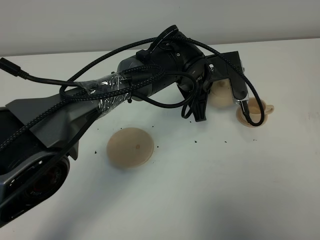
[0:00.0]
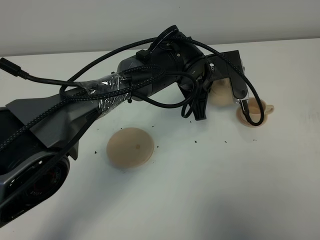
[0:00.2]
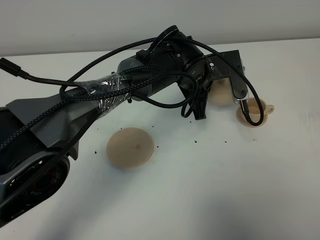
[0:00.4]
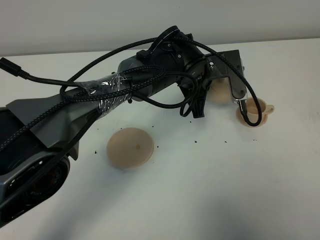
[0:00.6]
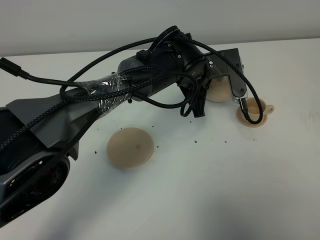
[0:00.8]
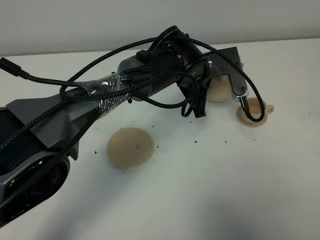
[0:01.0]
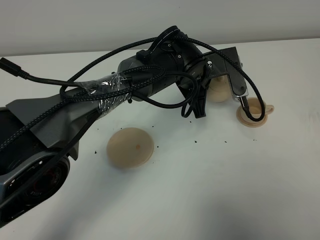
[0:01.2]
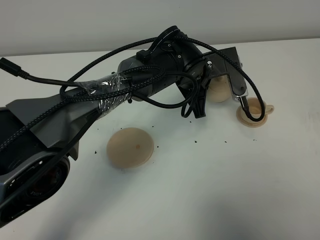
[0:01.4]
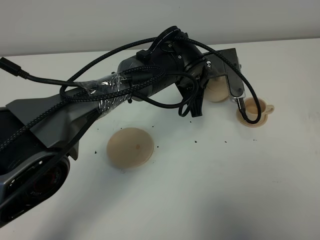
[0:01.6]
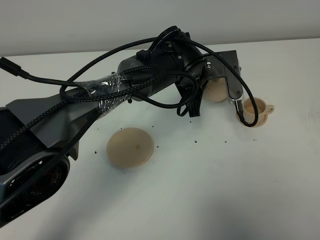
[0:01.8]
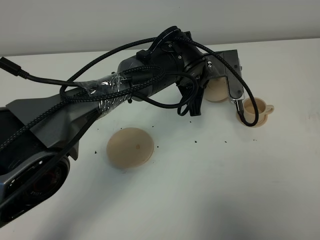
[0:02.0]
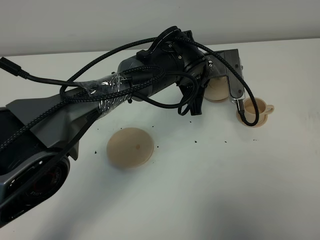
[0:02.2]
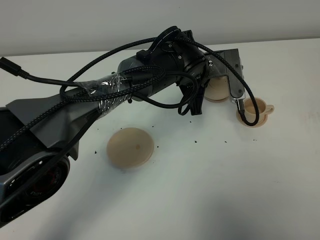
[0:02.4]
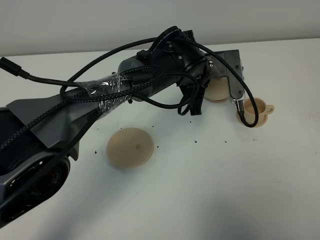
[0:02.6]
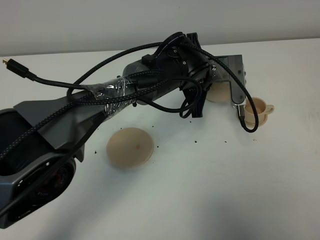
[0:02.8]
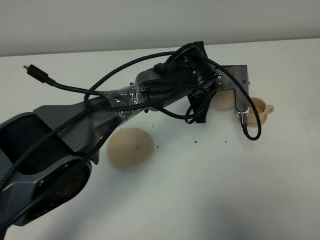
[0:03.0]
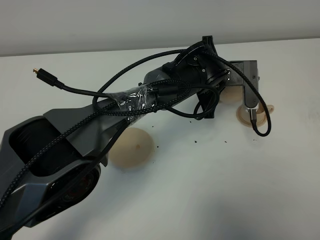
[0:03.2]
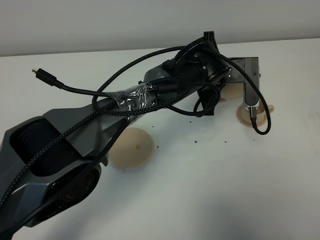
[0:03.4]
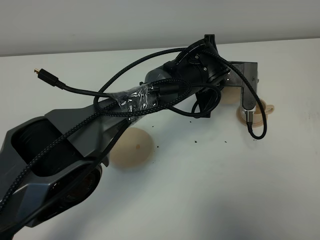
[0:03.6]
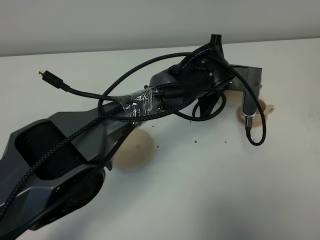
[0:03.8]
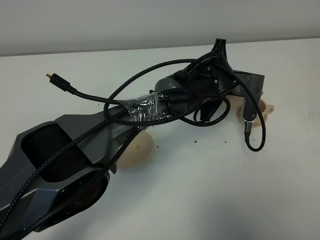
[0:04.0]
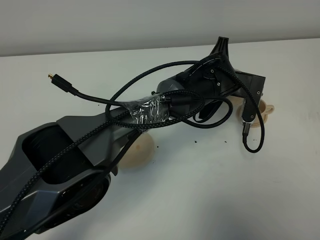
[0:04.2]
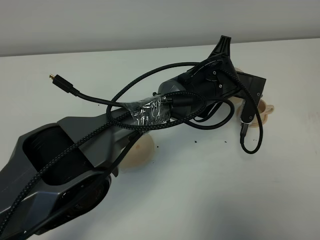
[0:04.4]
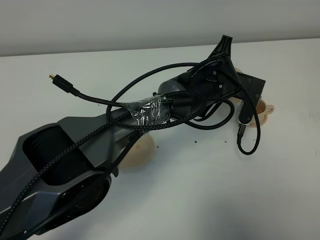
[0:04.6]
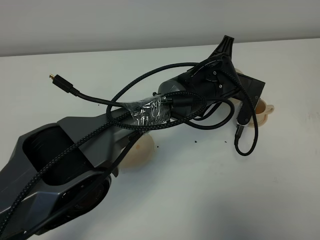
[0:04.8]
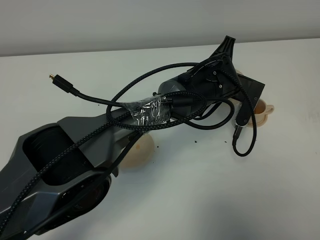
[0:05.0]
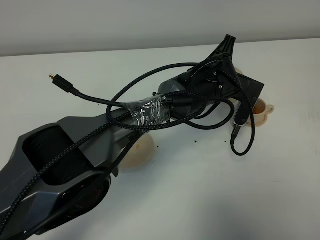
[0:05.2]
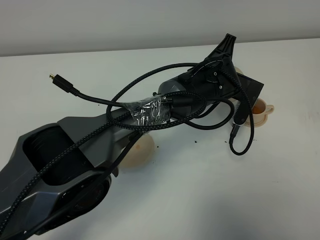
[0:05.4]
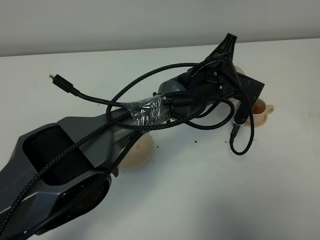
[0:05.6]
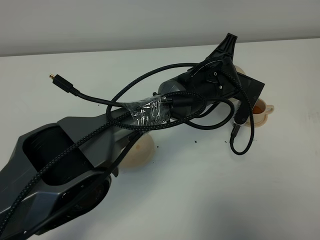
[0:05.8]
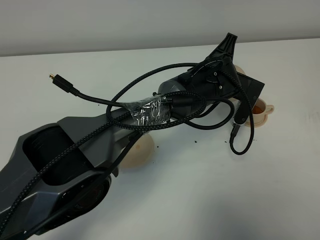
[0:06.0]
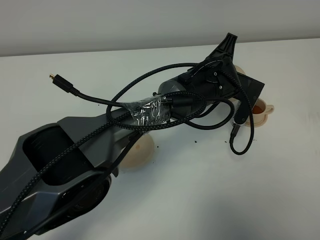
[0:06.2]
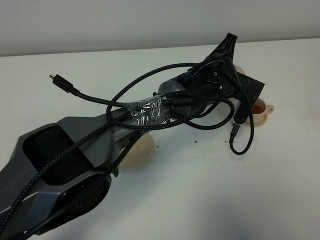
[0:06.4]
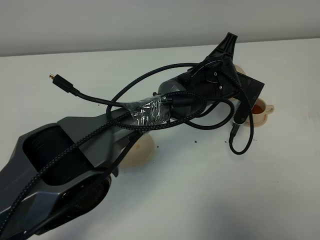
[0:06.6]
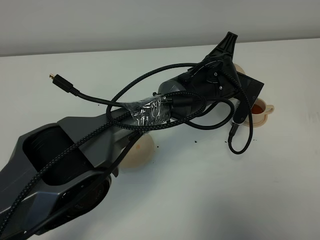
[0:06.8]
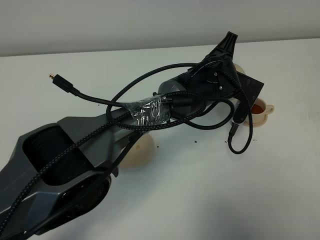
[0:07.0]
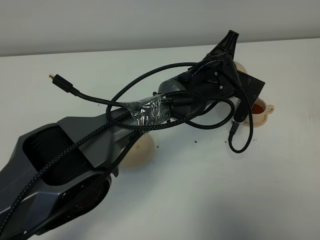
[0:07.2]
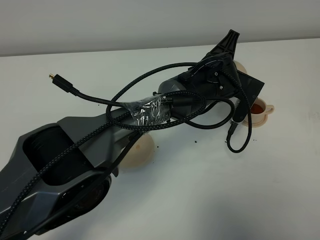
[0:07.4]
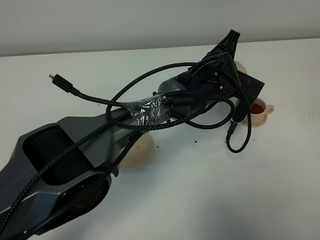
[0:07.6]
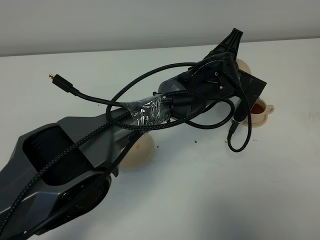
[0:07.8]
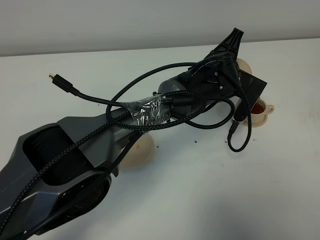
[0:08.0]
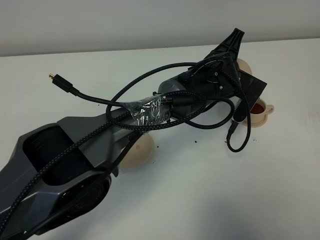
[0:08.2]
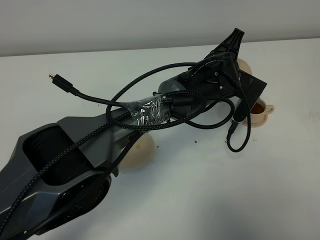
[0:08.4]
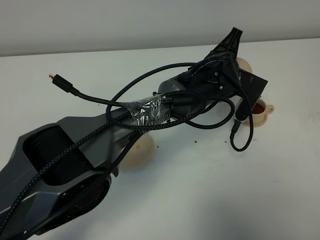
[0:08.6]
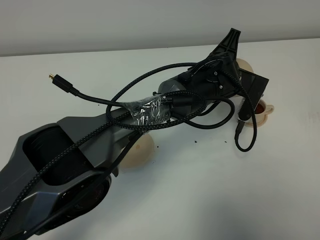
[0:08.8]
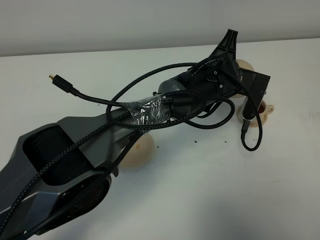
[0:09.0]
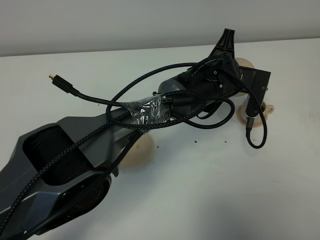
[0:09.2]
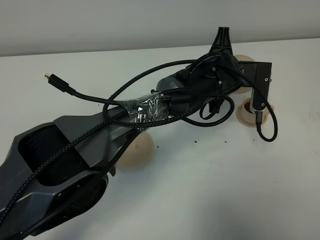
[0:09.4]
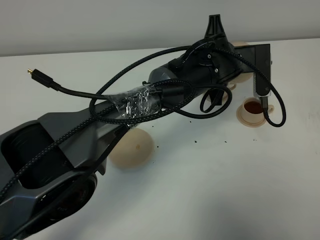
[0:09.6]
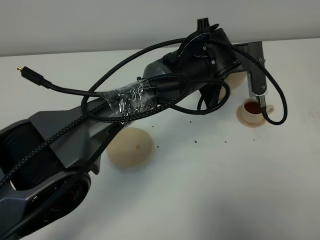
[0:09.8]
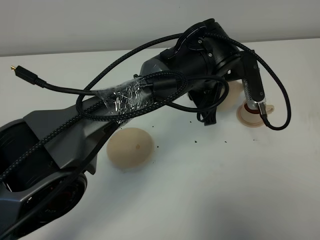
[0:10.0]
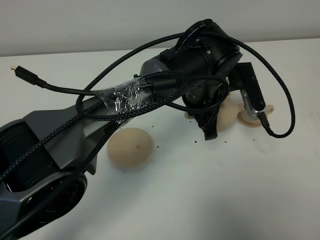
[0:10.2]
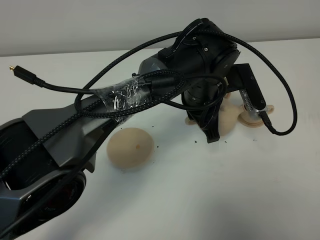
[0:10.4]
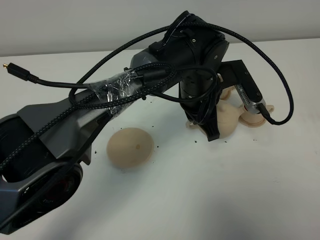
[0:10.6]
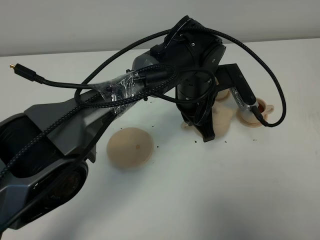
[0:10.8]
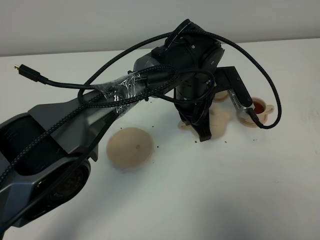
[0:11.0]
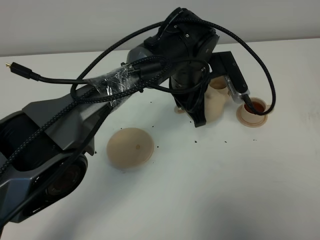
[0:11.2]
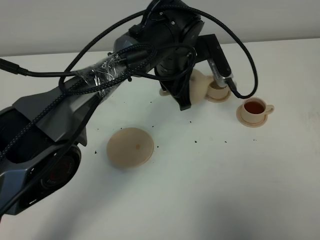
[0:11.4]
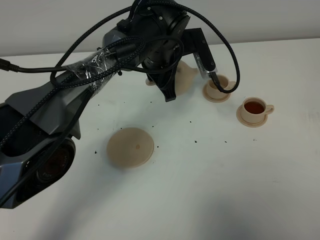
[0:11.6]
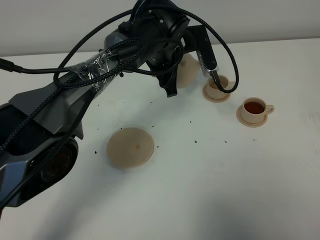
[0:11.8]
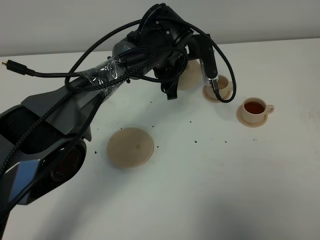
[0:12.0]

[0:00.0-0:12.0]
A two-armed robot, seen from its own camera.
Task of the whole recording: grasp the brown teapot and pour the tea into the two brown teacups one by one, put the brown teapot back in its original place.
Step, 0:00.0 to 0:09.0: Pour tea into the teacup with the left gripper.
0:00.0 to 0:01.6: Both grippers stay put.
0:04.4 to 0:06.0: The grippers move only a little.
0:06.0 to 0:07.6: Both grippers stay put.
0:07.6 to 0:09.0: The grippers stay close to where they were, moving slightly.
0:09.0 to 0:10.4: The left gripper moves roughly 5 cm.
0:10.4 to 0:12.0: The left gripper is displaced forward and to the left by approximately 10 cm.

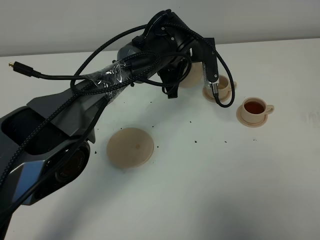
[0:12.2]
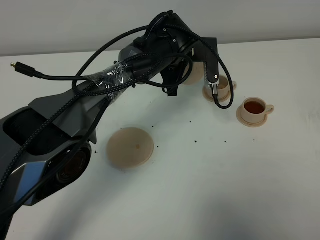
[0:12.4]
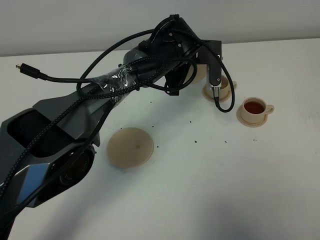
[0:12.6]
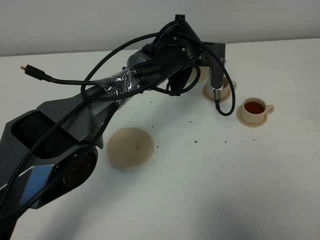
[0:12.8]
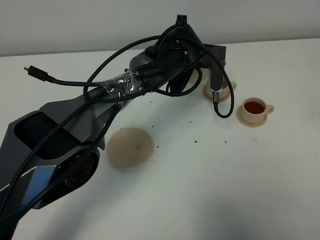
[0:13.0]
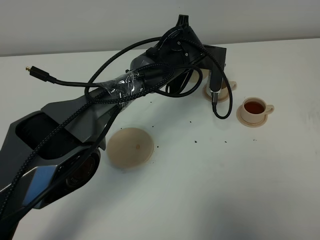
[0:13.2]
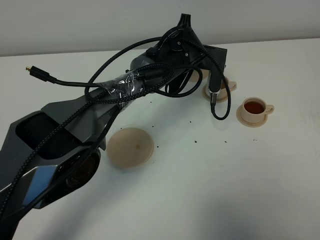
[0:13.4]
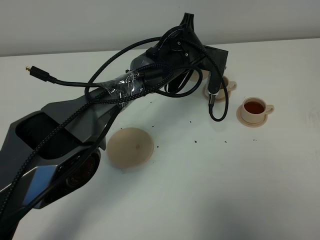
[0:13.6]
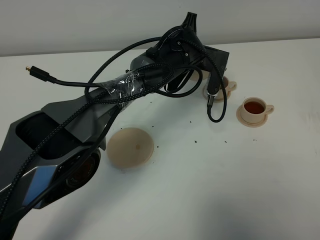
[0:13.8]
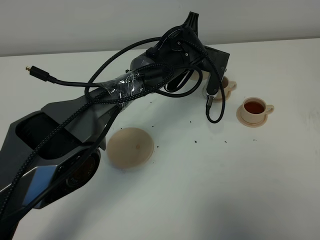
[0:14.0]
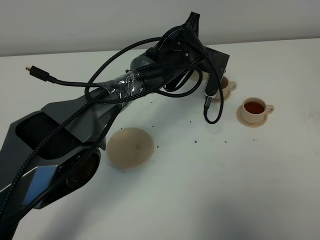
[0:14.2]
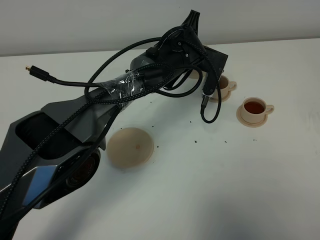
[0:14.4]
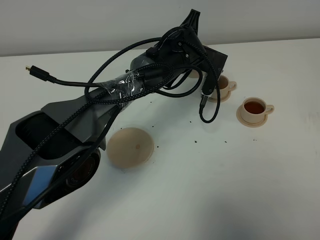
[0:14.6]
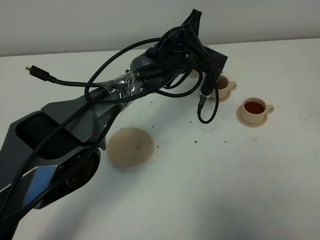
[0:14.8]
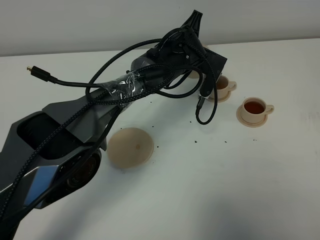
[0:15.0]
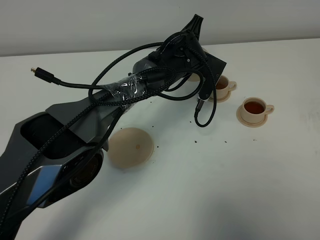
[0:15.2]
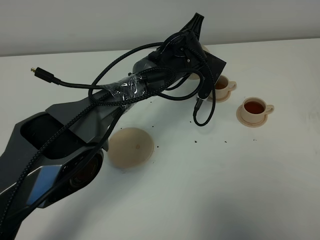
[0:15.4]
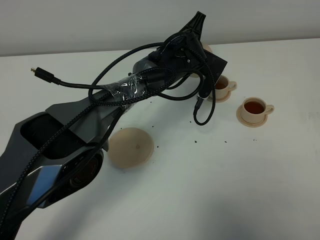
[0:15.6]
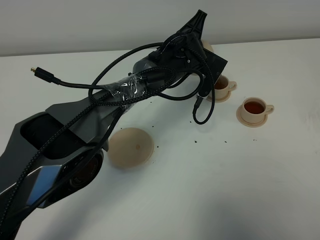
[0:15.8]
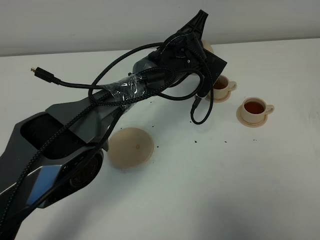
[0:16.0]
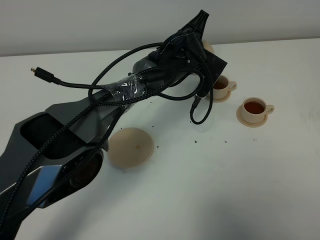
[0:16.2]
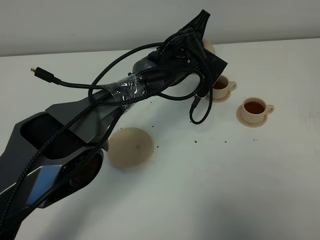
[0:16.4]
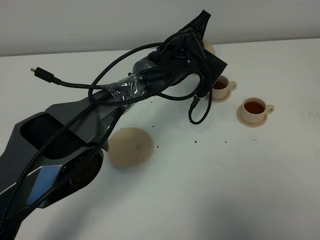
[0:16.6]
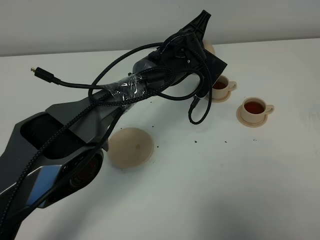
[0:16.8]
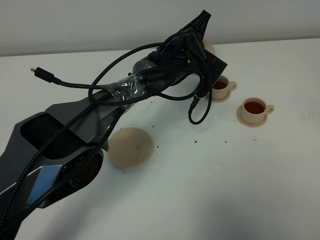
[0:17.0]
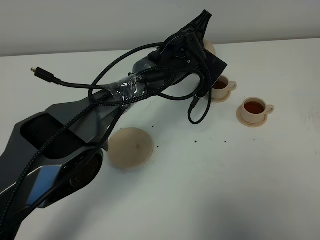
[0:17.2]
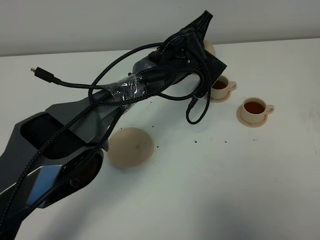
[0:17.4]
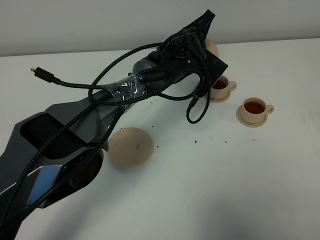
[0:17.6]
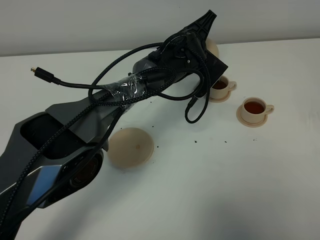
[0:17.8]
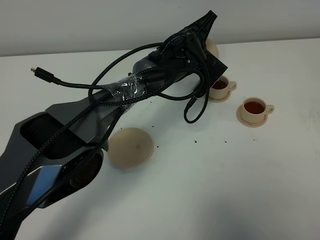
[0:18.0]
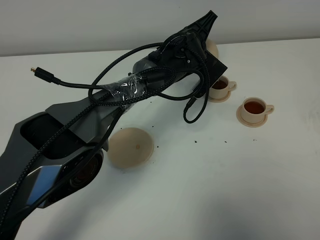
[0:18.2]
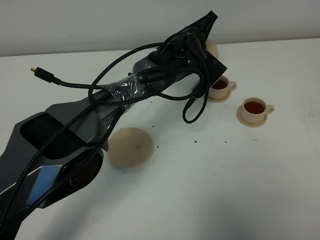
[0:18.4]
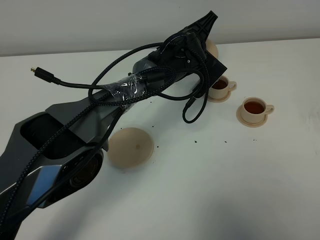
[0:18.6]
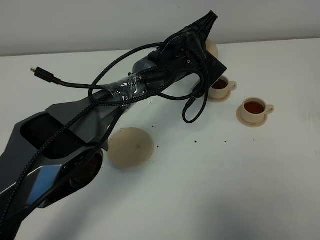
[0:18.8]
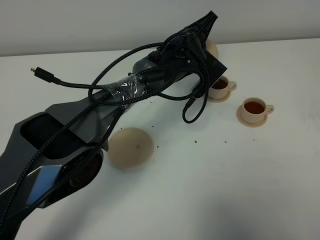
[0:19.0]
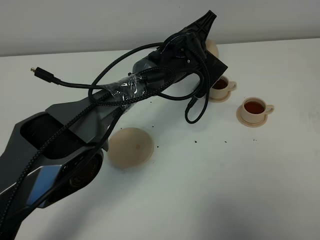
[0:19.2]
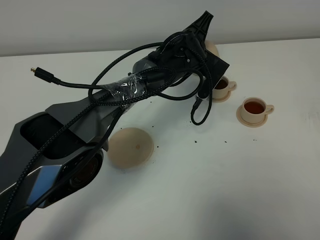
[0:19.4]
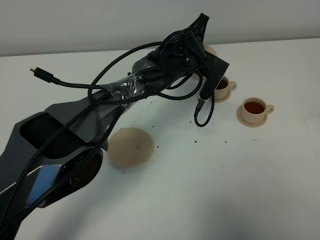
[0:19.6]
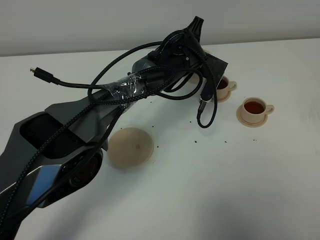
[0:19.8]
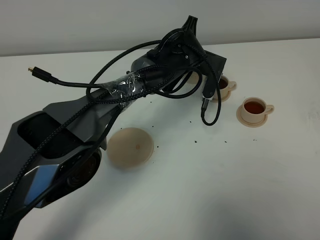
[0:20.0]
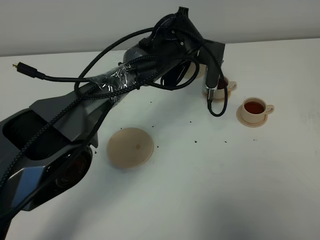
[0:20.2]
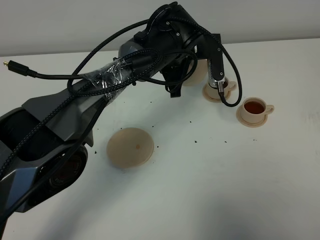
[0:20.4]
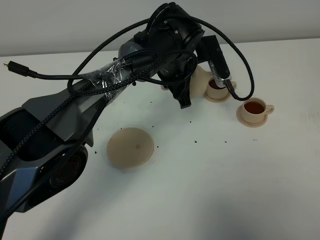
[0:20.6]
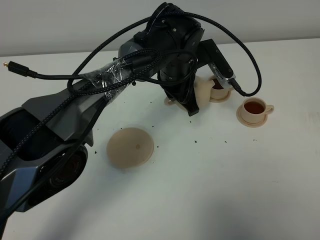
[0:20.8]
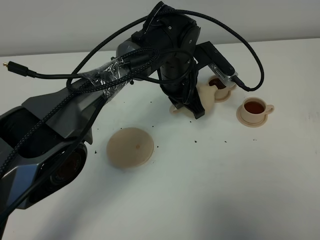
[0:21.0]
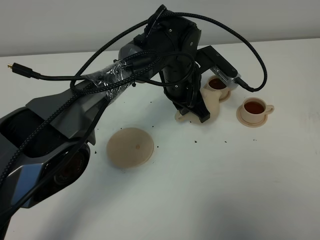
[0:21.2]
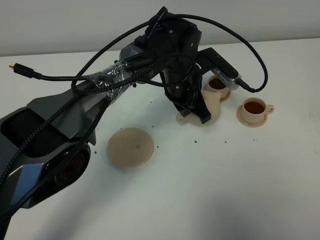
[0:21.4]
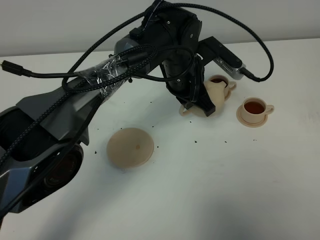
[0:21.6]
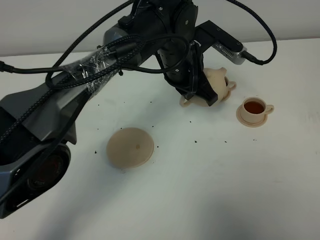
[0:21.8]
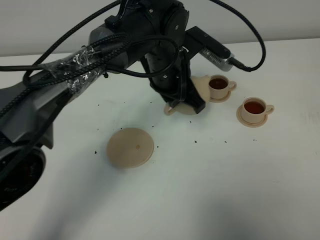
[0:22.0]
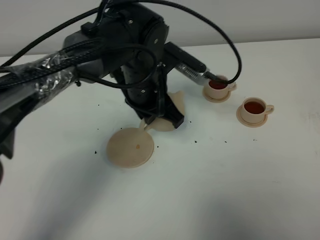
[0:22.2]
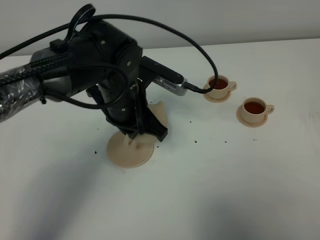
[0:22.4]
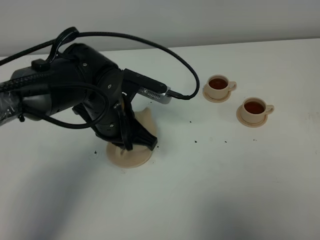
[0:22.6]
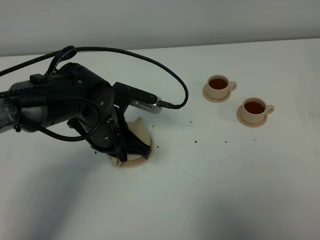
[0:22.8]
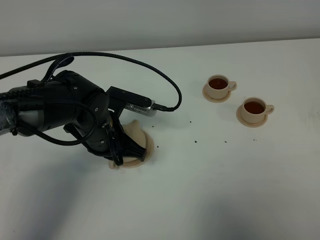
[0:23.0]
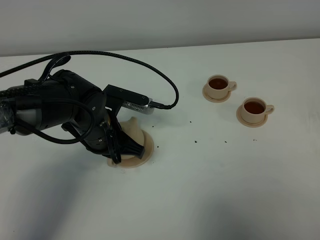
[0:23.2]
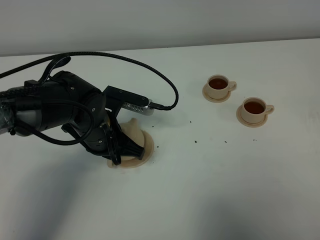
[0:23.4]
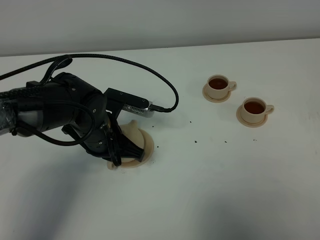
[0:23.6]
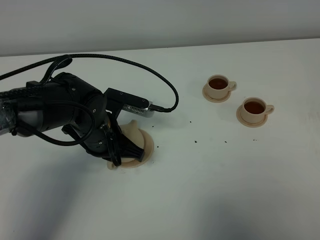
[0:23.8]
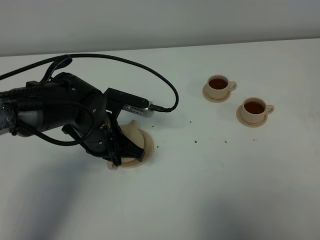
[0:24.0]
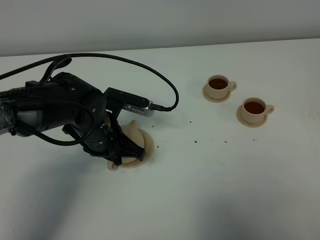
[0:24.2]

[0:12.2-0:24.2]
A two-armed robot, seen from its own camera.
Task of the whole recording: grasp the brown teapot and pour the tea into the two brown teacups one by one, put the brown teapot back in its original place.
Step, 0:12.2 to 0:20.0: Pour tea into the teacup with the left gripper.
0:13.8 to 0:15.2: The grippers stay close to where they were, moving slightly.
0:15.2 to 0:18.2: The grippers make only small movements.
0:19.8 to 0:21.2: The left gripper shifts by roughly 5 cm.
0:21.2 to 0:22.6: The left gripper shifts roughly 15 cm to the left and backward.
0:22.6 to 0:24.2: The left gripper opens up.
